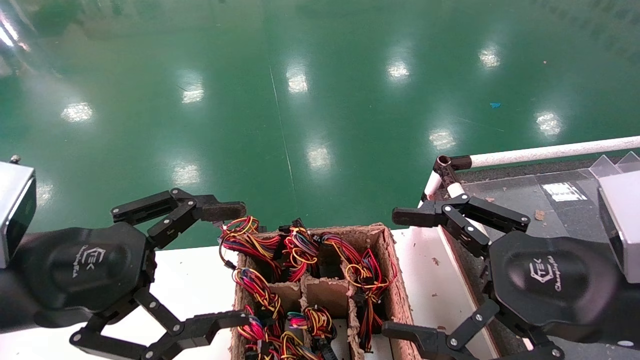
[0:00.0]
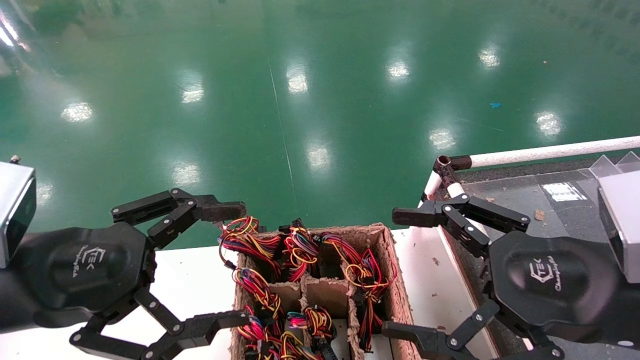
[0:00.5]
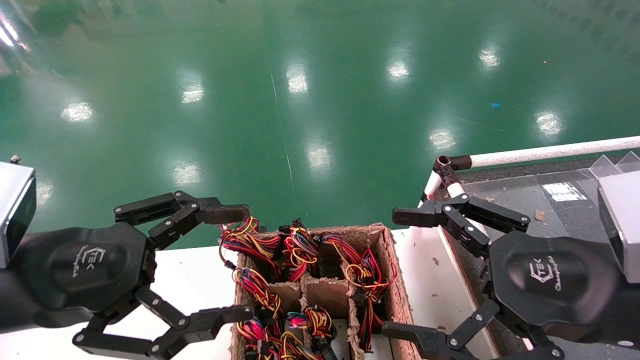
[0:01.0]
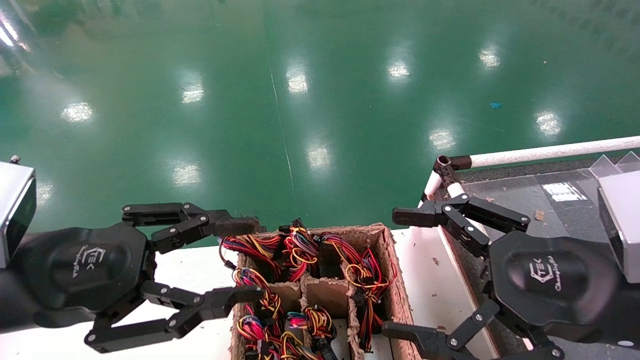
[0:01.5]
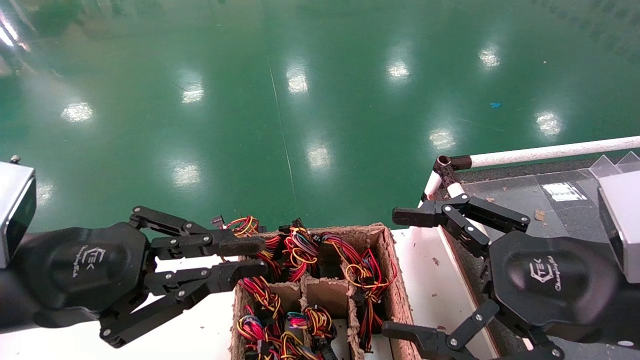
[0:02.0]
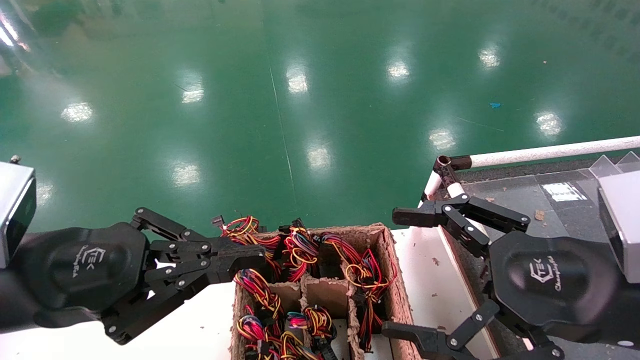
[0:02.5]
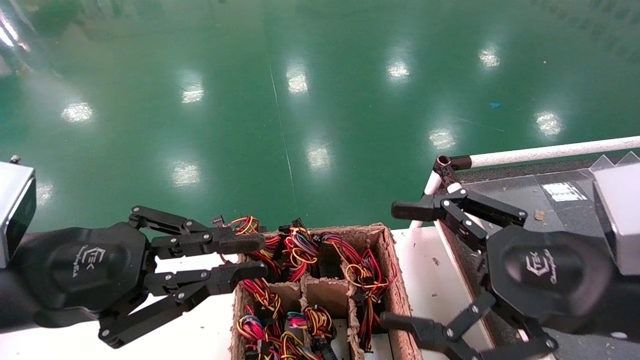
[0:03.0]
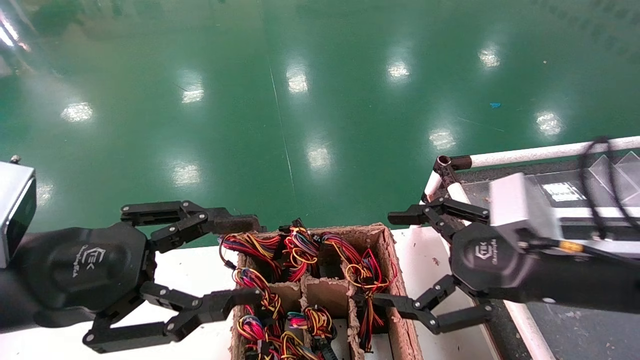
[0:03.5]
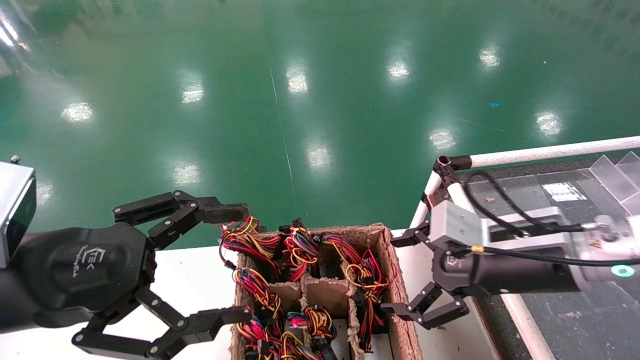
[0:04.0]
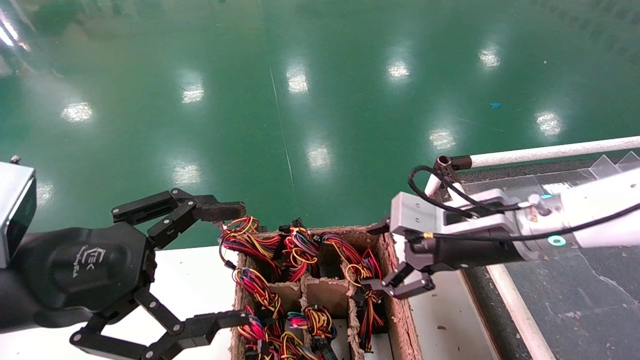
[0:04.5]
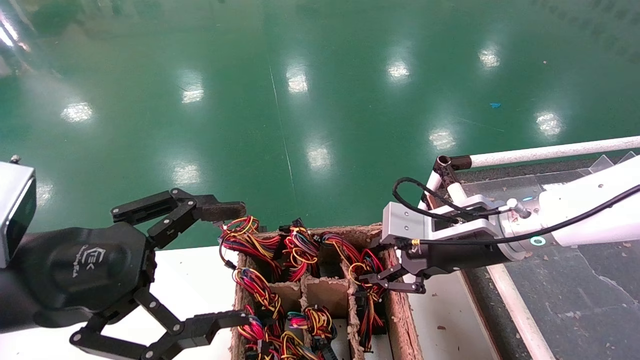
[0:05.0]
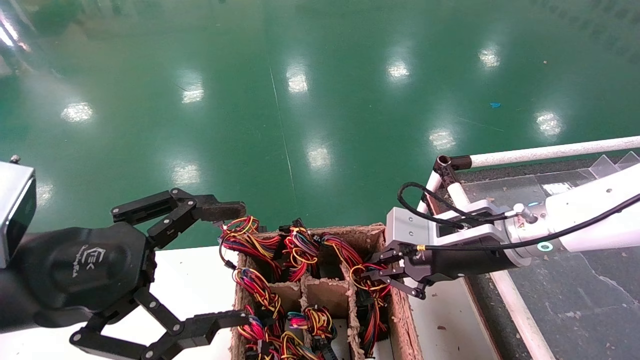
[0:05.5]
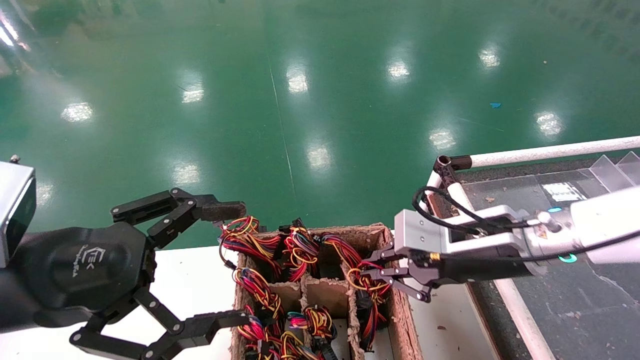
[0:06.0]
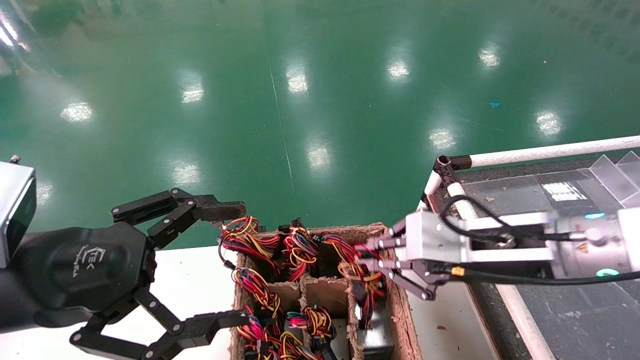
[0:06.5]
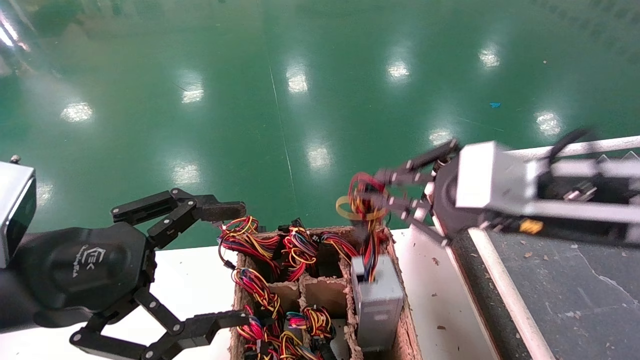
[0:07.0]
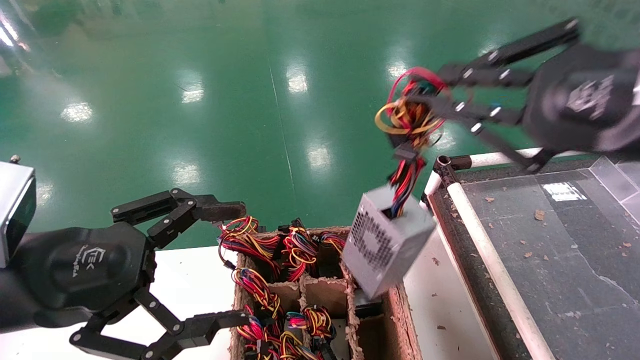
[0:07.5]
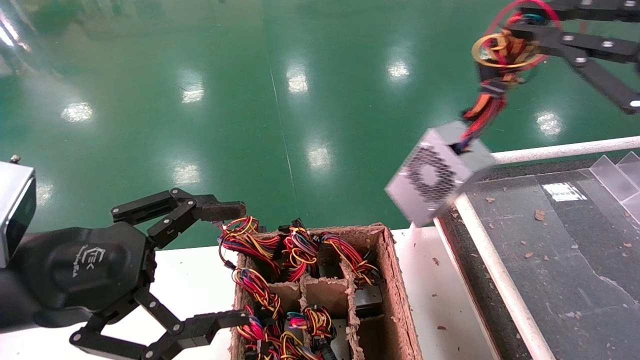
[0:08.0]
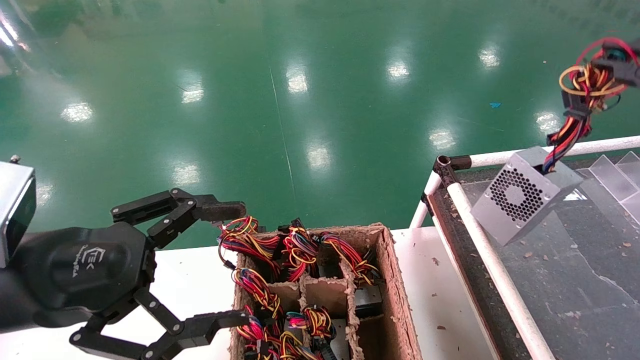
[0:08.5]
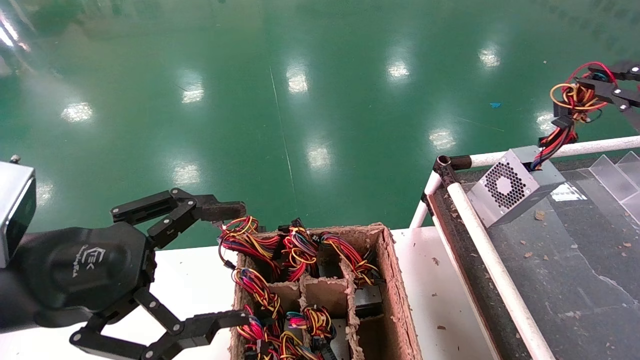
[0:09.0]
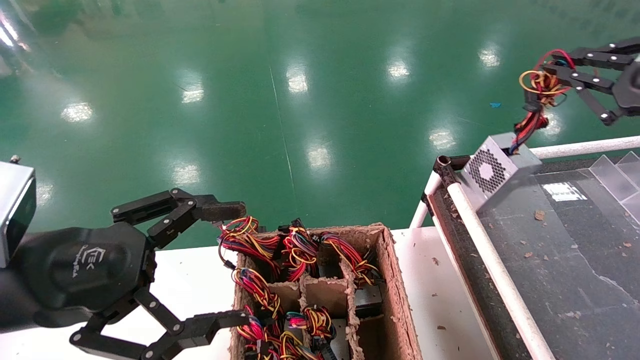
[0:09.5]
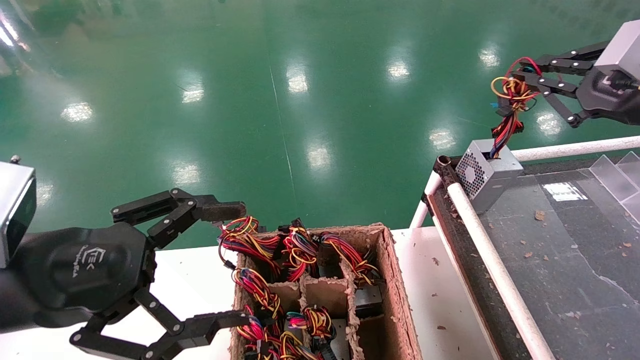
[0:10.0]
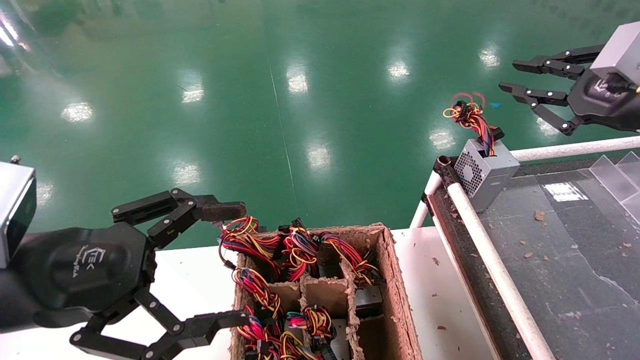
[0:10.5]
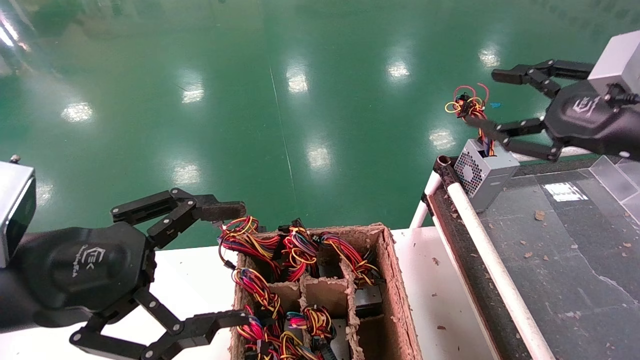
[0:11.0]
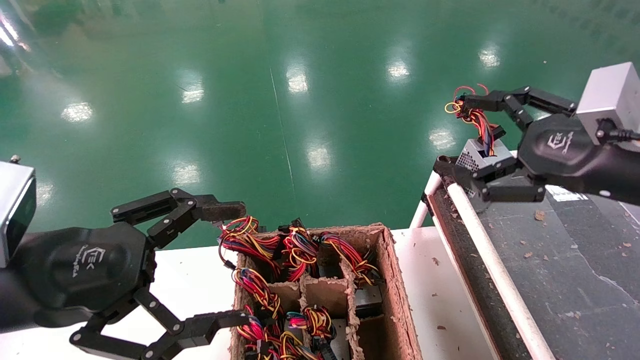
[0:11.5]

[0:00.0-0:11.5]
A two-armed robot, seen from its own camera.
Step, 0:03.5 to 0:05.0: Grab and lift the power supply from the large box.
Step, 0:05.5 to 0:10.0: Place the power supply on the operating table.
0:00.0 to 0:02.0: The left gripper closes.
0:02.0 to 0:04.0: The left gripper opens up, while the right gripper moves forward, about 10 cm.
0:04.0 to 0:06.0: The right gripper closes up.
0:06.0 to 0:07.5: The right gripper travels upward, backward and to the right by about 20 cm.
0:07.5 to 0:09.5: The right gripper is displaced to the right and forward by about 15 cm.
0:09.5 to 0:11.5: The right gripper heads to the left and downward, covering some 10 cm, and opens its fingers.
